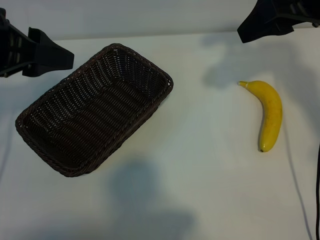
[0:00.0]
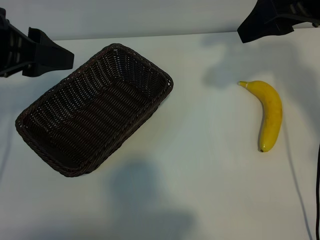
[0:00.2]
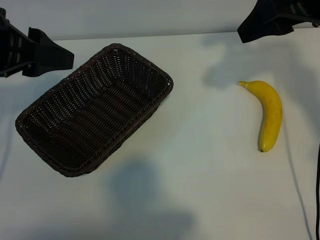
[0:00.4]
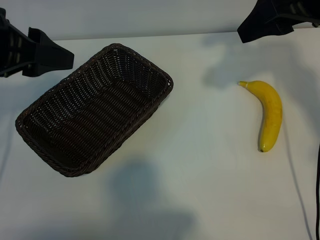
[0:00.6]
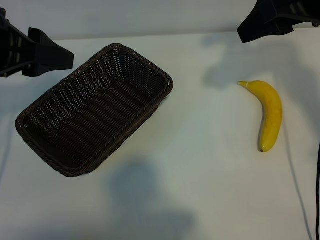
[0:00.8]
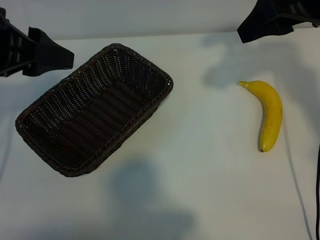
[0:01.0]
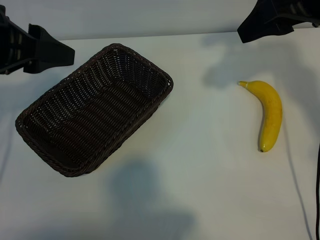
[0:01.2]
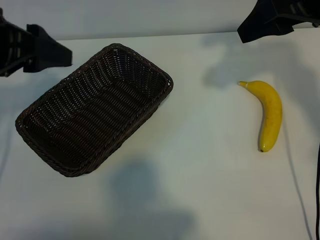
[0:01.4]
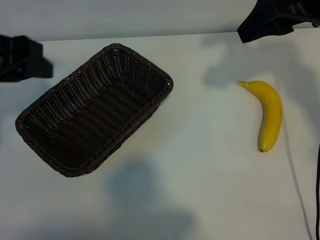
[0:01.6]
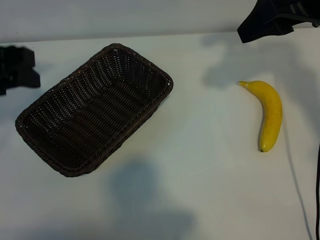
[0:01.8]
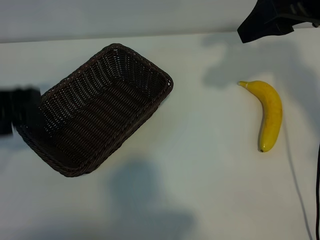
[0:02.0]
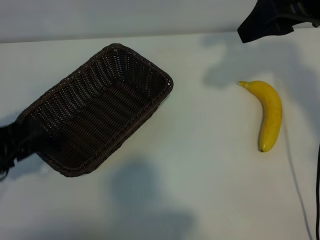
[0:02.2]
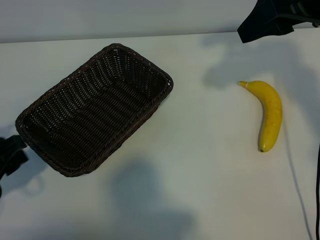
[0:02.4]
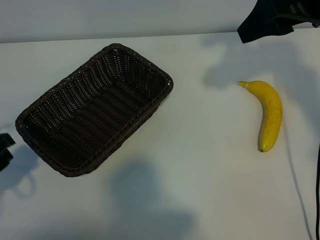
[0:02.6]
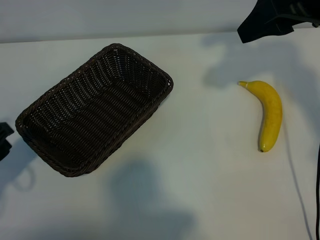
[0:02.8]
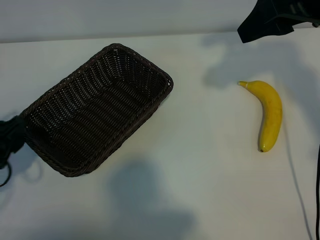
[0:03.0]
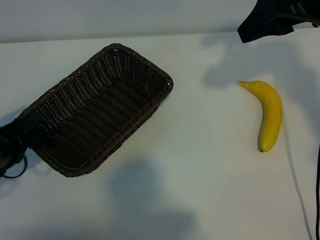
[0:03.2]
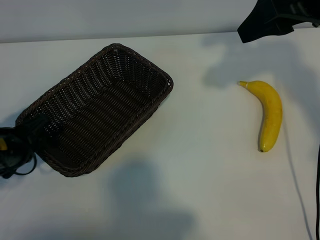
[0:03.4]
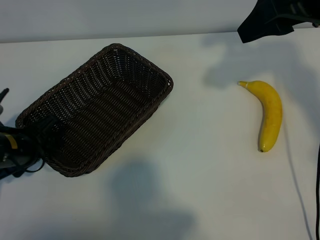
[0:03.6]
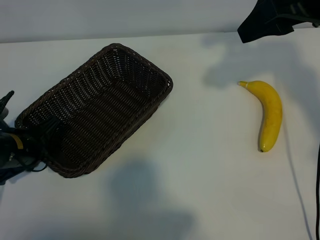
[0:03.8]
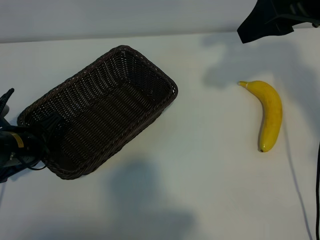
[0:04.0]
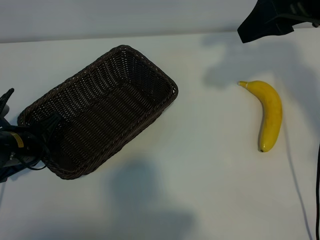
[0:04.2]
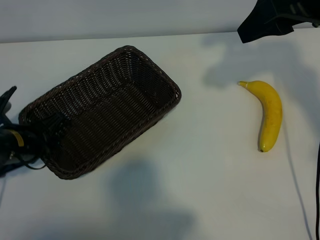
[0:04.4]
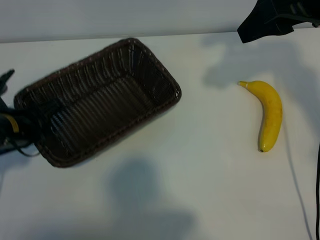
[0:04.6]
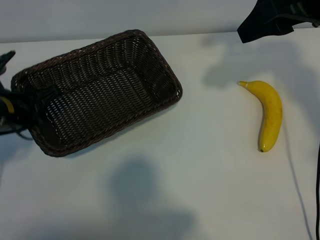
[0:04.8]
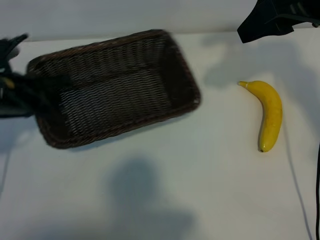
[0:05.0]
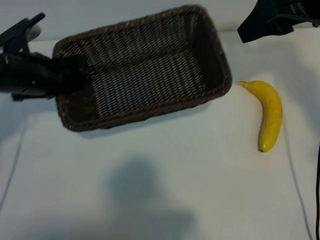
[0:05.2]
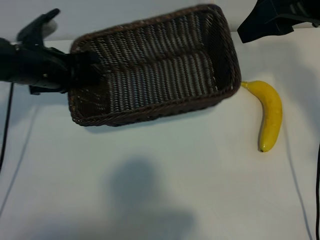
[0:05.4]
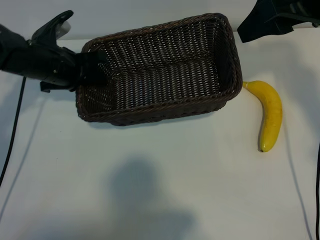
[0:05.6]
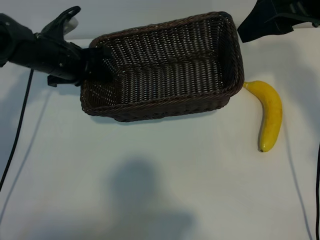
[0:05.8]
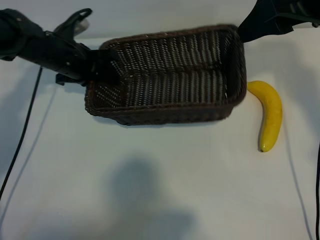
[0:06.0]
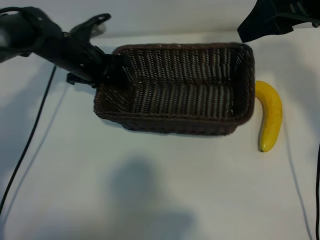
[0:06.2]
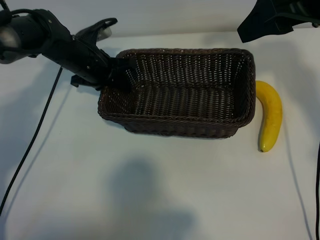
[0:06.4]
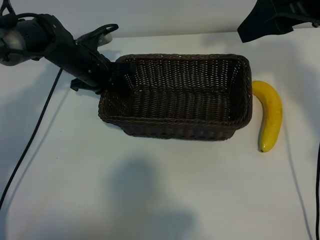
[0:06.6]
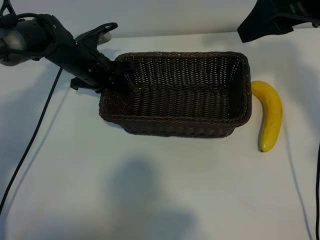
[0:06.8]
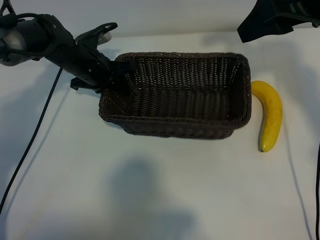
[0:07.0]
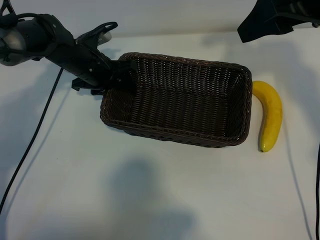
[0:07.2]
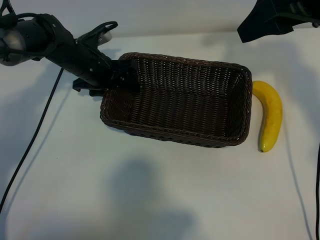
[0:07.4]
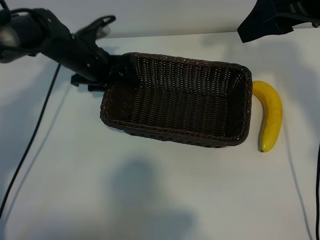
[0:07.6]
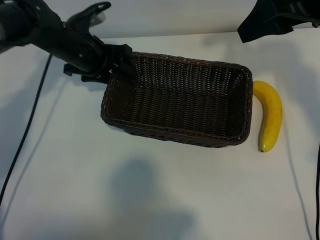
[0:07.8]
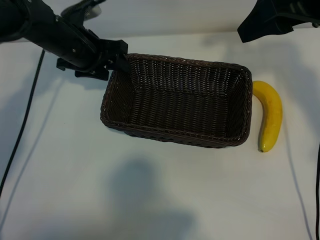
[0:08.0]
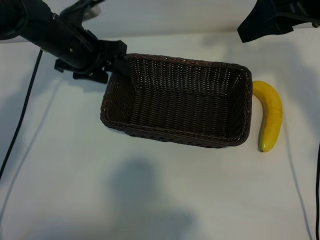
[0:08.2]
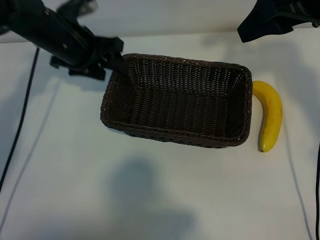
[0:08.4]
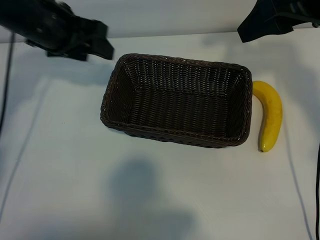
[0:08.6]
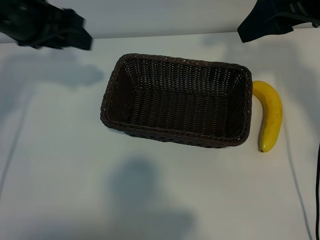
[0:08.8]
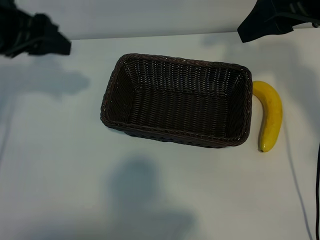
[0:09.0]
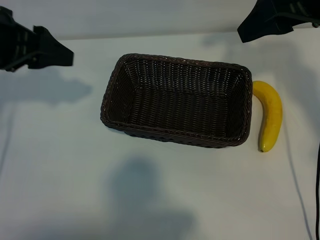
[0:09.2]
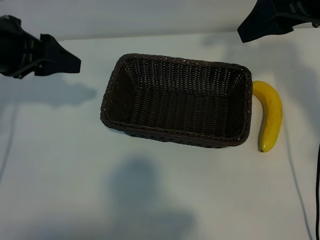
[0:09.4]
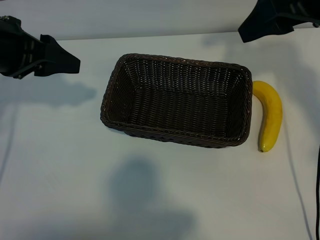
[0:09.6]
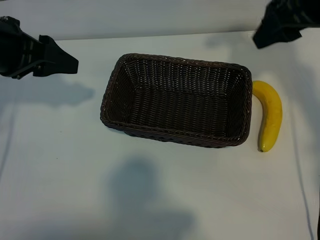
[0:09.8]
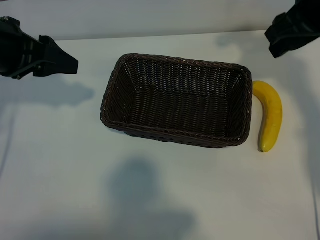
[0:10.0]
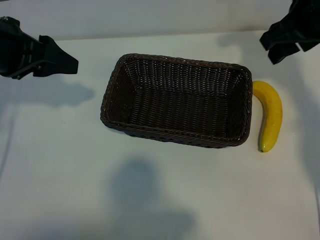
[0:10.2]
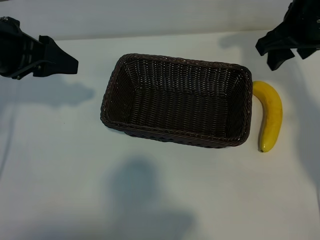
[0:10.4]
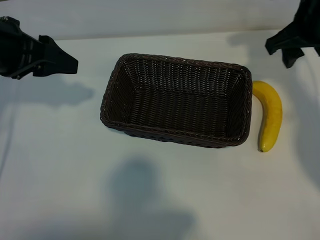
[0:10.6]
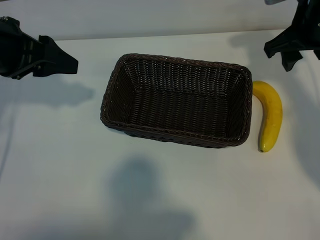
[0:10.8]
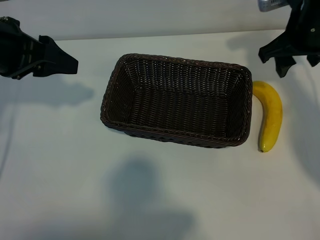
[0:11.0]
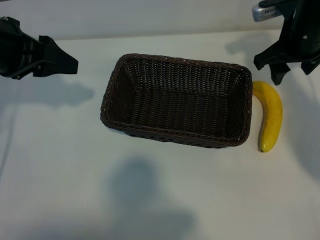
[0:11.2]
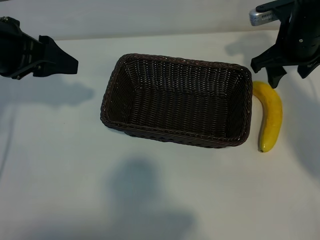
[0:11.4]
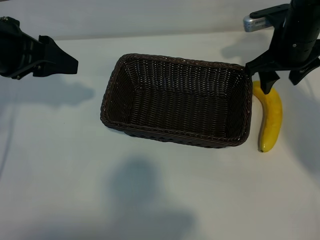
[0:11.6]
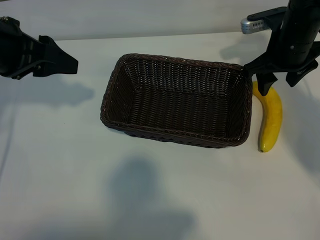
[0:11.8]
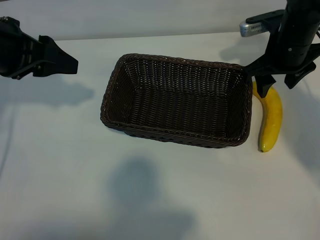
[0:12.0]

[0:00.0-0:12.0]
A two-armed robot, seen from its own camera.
Task of the whole recording: pick up the banana and put it into the basket.
Step, 0:01.0 to 0:04.0: Grasp the basket with the left gripper.
Step, 0:04.2 to 0:07.6: Place the basket in the center of the table with the left gripper.

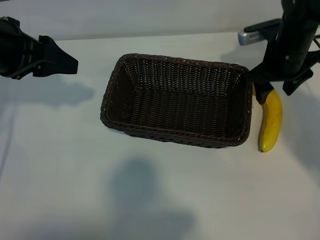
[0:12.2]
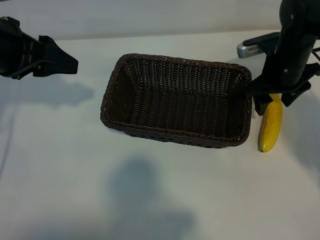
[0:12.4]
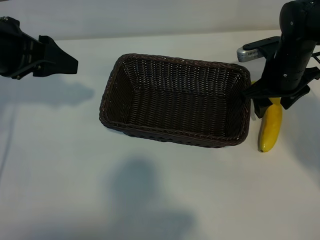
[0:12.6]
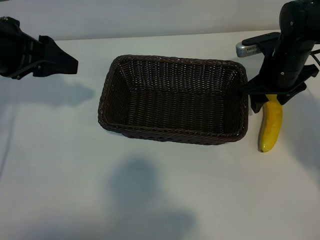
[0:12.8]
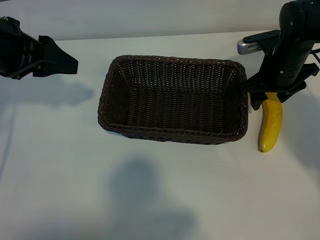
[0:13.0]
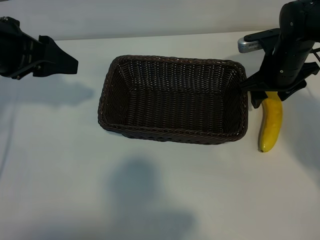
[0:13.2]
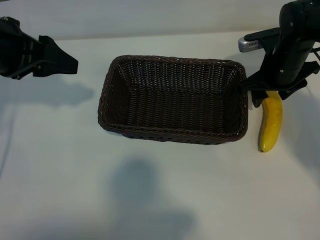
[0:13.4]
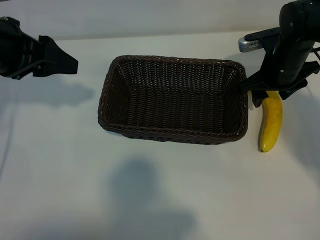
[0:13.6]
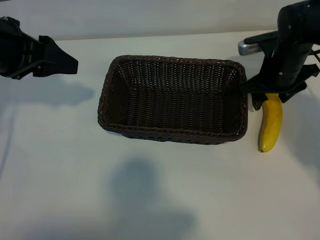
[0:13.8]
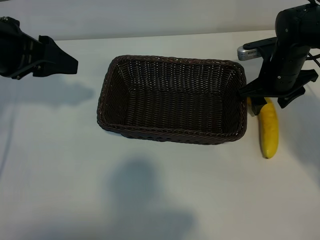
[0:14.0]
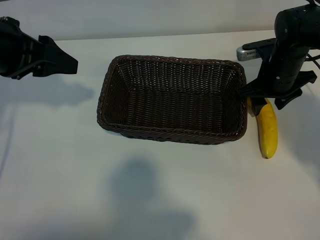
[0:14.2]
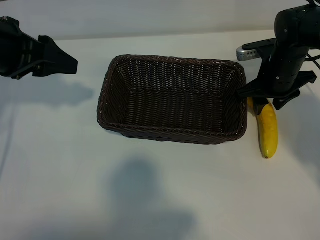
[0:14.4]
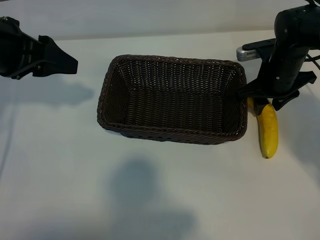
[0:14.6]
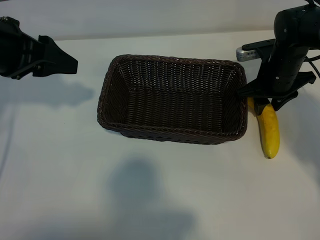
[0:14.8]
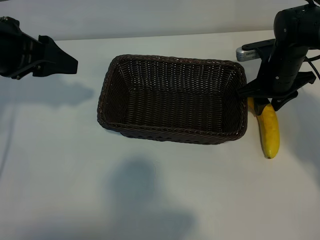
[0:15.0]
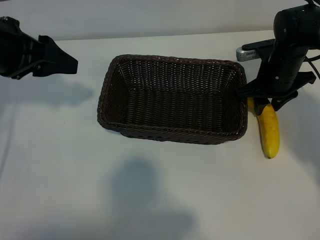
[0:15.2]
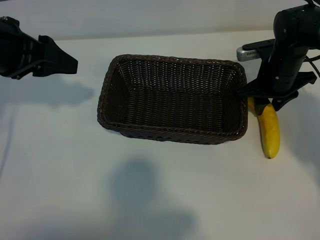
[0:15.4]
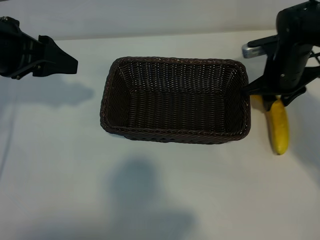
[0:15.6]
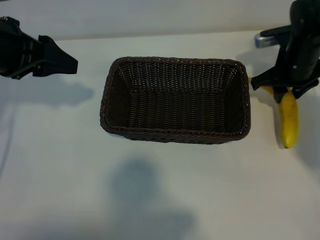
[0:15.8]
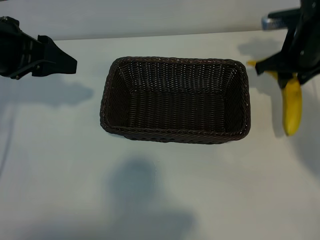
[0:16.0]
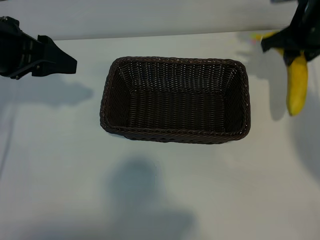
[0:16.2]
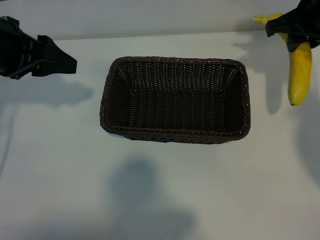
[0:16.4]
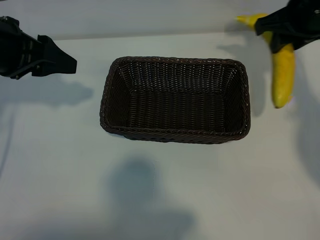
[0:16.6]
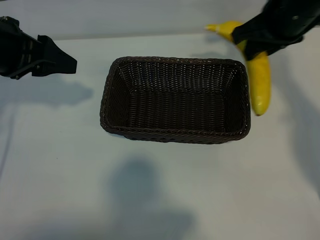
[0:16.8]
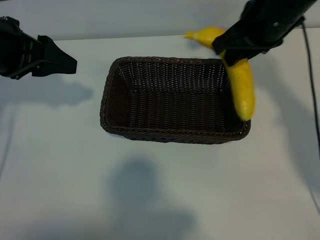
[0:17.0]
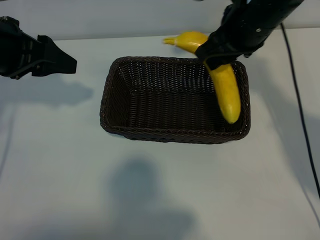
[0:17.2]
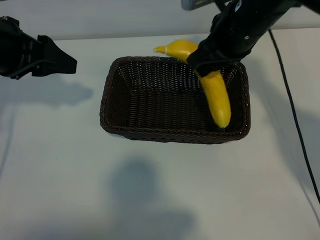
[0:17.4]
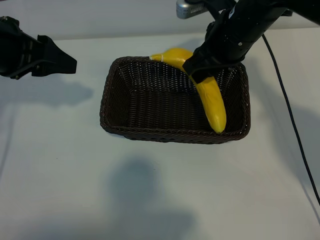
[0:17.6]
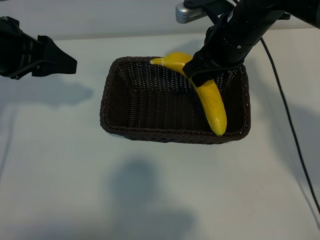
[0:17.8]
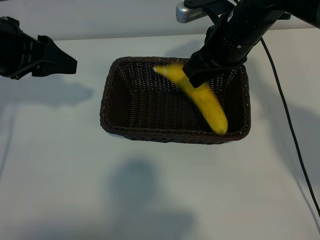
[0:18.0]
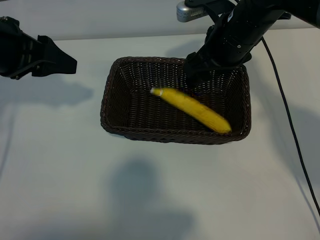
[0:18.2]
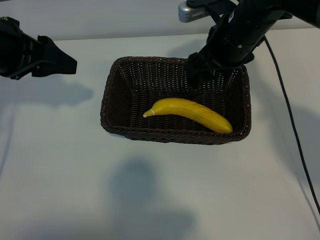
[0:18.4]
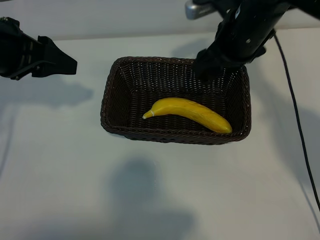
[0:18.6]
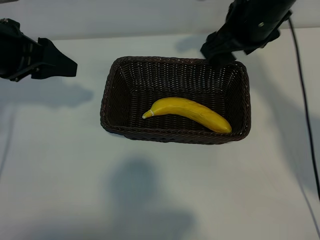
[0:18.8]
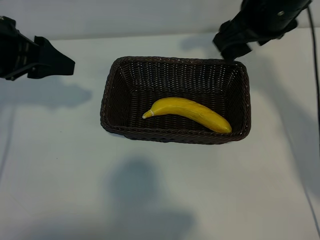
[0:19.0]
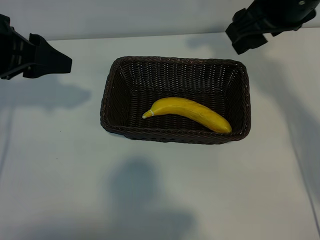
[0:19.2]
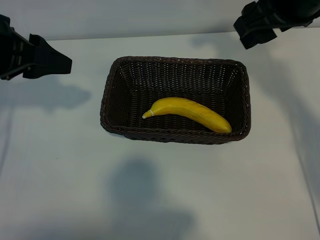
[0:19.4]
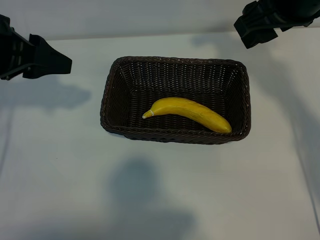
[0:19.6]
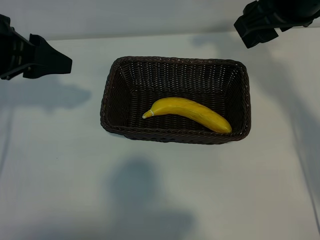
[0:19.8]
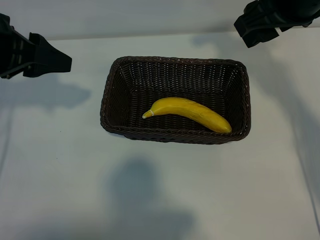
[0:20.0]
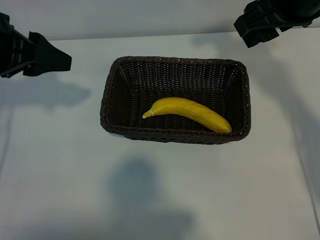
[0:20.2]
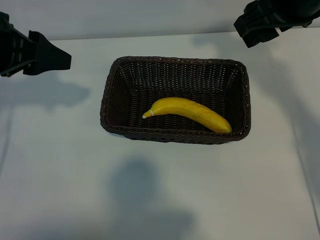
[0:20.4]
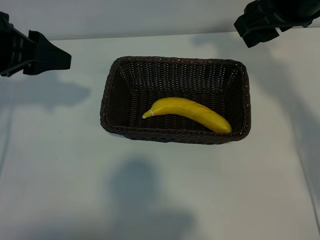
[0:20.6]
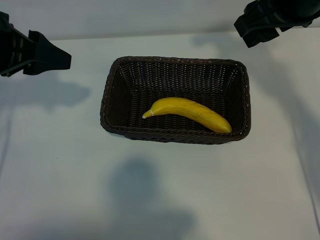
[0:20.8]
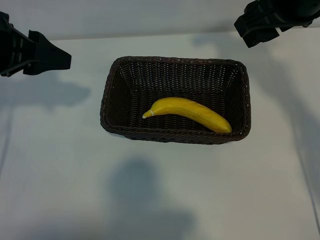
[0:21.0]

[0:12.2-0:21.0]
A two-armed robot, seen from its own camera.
Task of the whole recording: pick up the banana and put it into the basket.
Step, 0:12.2 to 0:15.4: Grasp the banana with right gripper.
Step, 0:15.6 to 0:18.4: Place the banana in the basket with right gripper.
